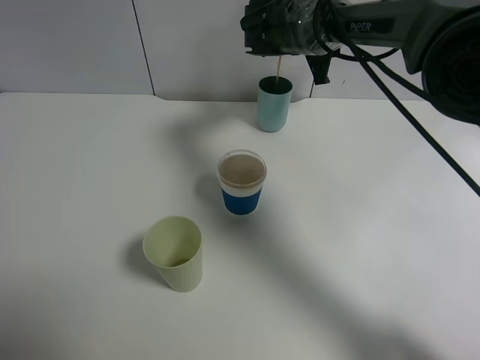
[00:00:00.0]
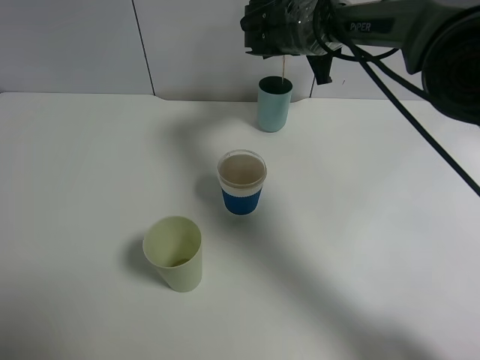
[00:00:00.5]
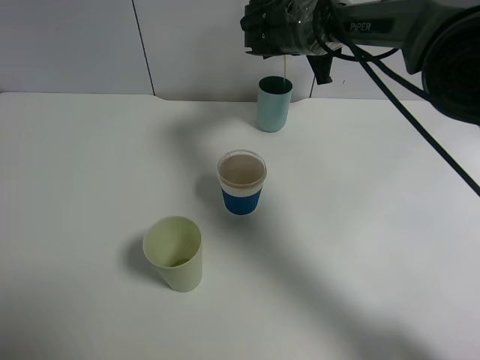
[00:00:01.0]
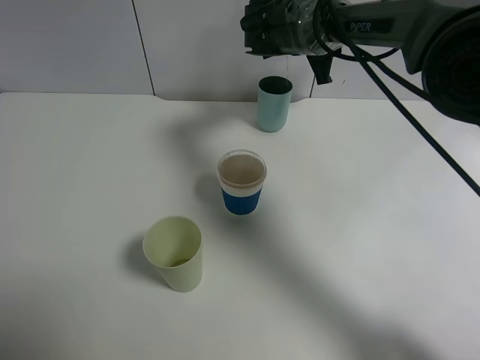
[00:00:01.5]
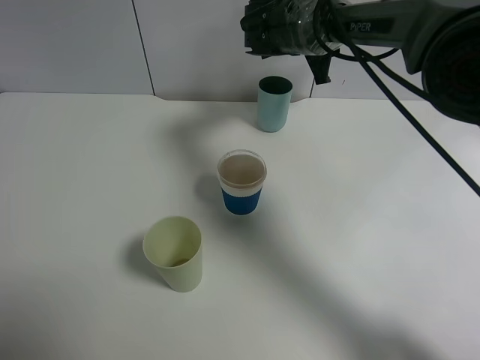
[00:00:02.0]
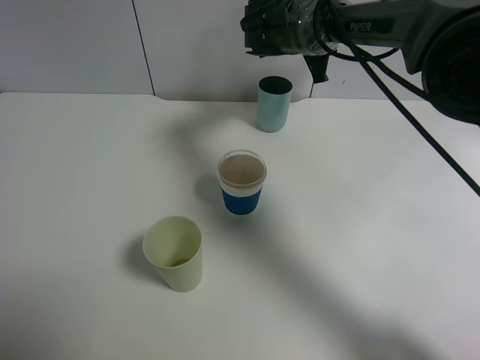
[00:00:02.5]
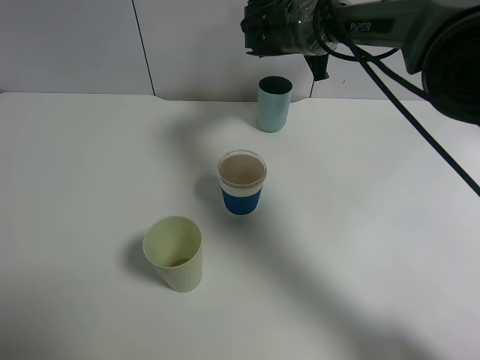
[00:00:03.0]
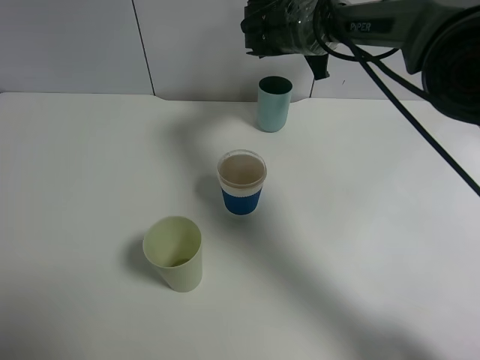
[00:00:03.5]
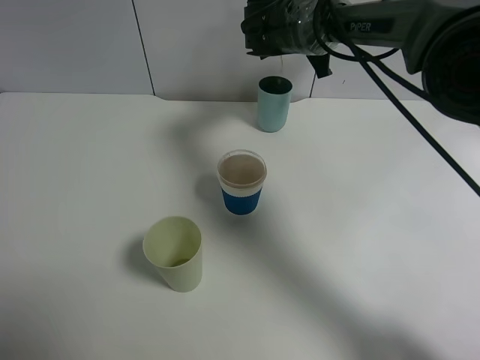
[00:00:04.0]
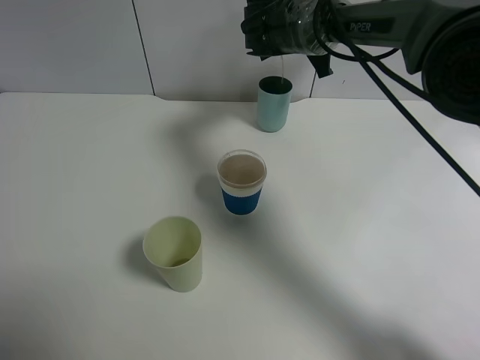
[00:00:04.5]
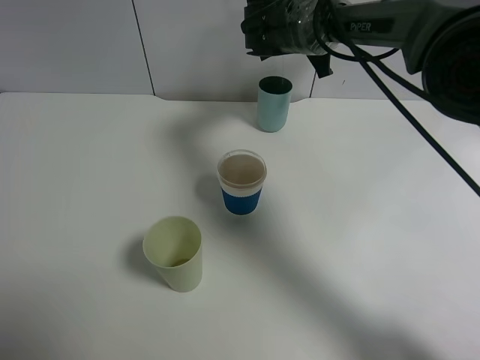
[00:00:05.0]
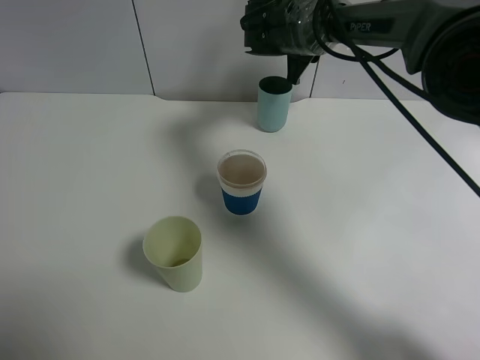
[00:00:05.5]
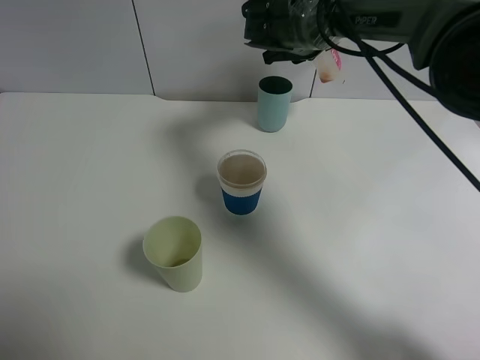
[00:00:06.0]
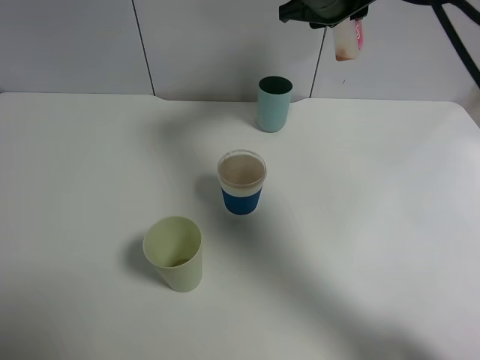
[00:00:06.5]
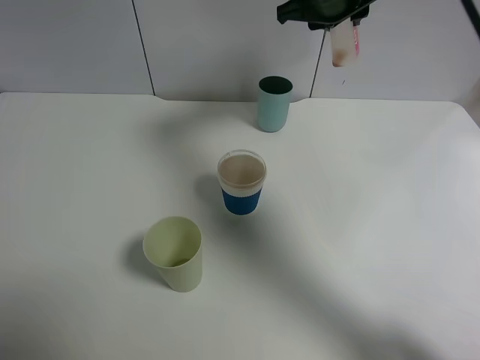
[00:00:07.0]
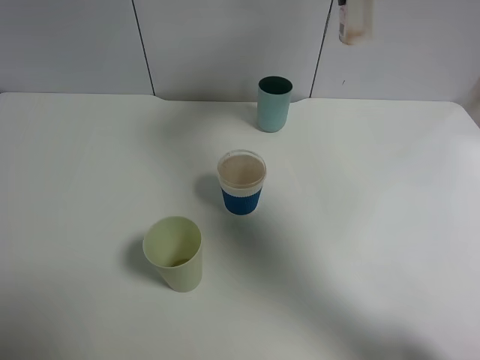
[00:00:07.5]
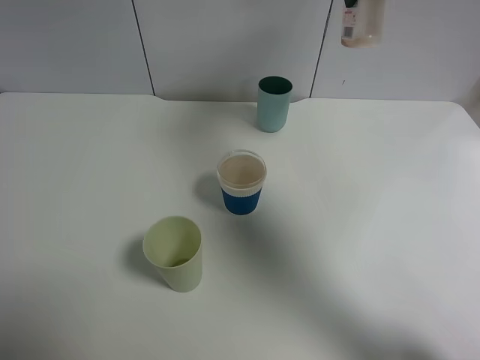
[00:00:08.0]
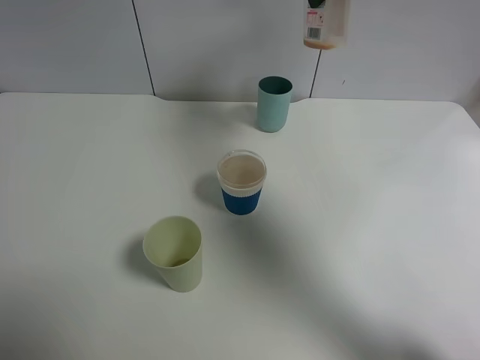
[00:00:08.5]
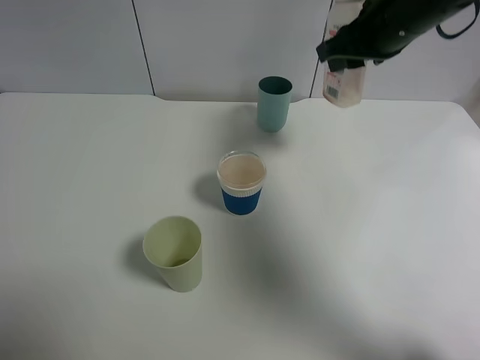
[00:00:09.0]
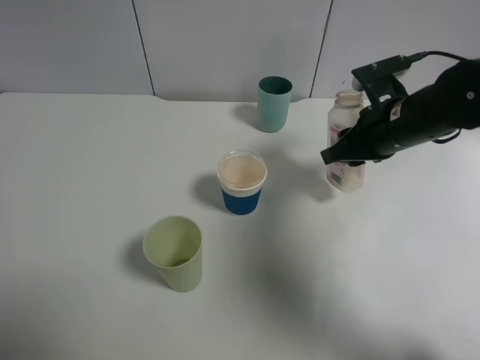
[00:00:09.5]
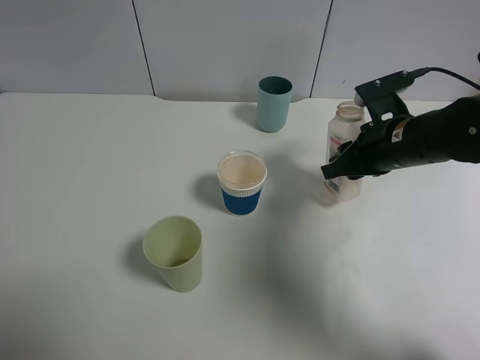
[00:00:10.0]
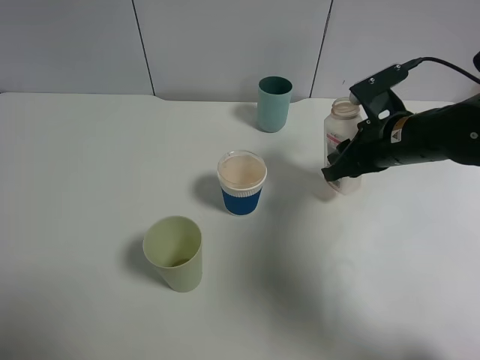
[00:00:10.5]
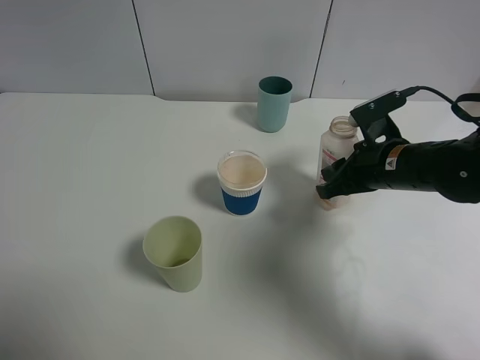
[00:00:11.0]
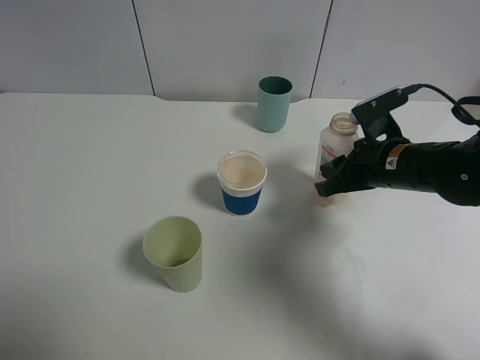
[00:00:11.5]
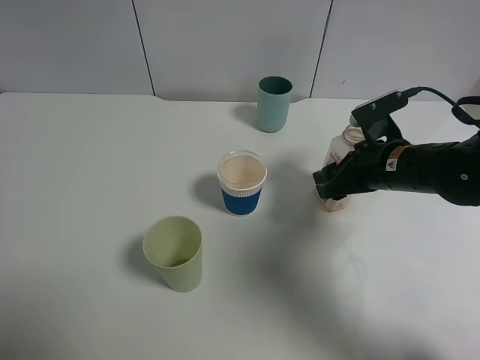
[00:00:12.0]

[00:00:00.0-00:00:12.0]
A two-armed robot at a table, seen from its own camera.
Task of the whole recording: use a gripper to hold the bottle of the drink and pour it into a random cup.
00:00:00.0 to 00:00:02.0: The two grippers keep their place.
00:00:06.0 to 00:00:08.0: The right gripper moves upward, to the right and backward, approximately 20 cm.
00:00:08.0 to 00:00:10.0: The right gripper moves downward and backward, about 25 cm.
00:00:10.0 to 00:00:12.0: The right gripper opens its fingers.

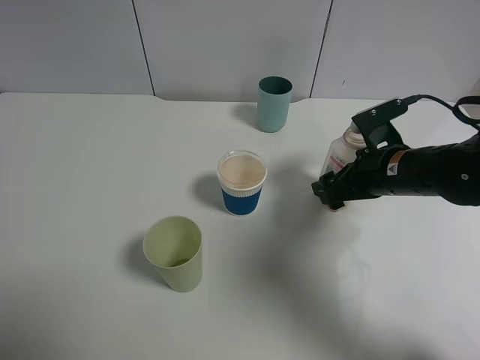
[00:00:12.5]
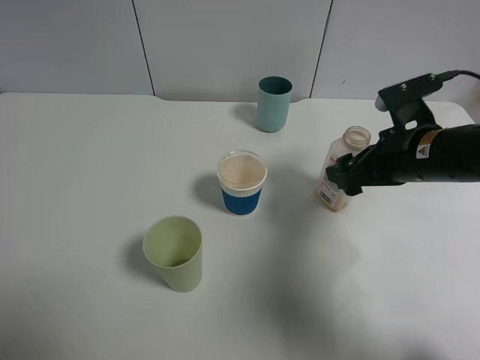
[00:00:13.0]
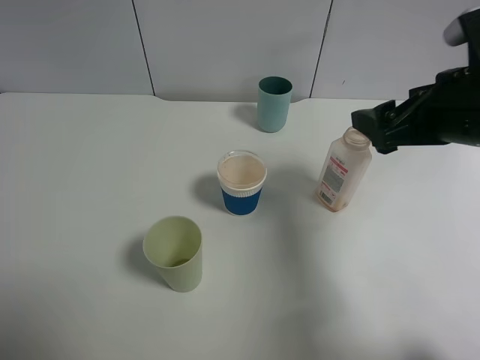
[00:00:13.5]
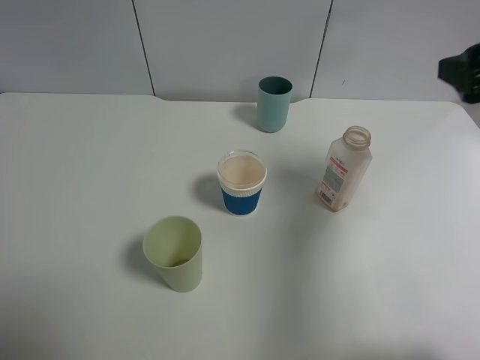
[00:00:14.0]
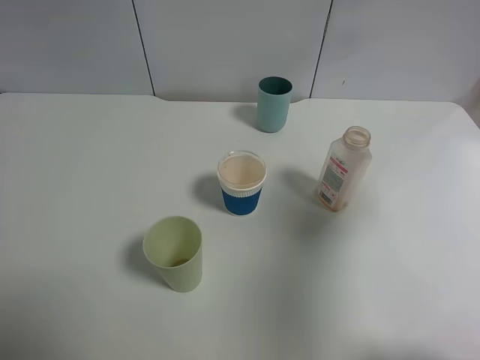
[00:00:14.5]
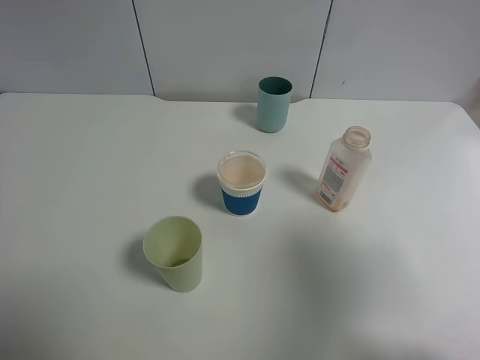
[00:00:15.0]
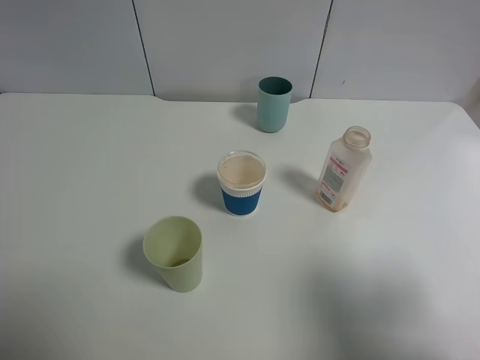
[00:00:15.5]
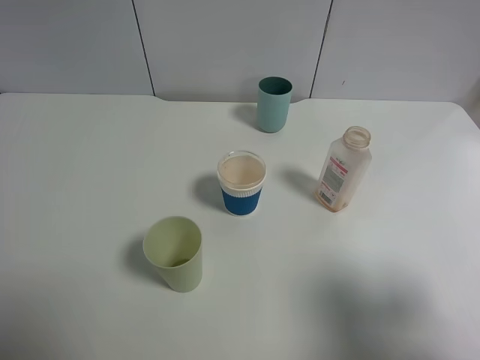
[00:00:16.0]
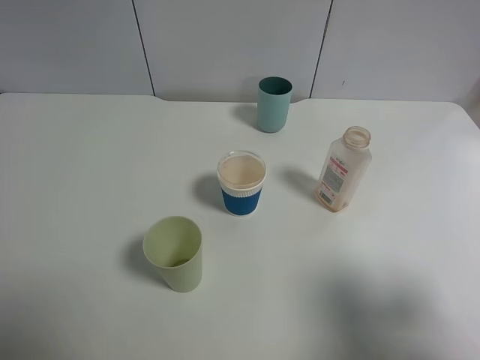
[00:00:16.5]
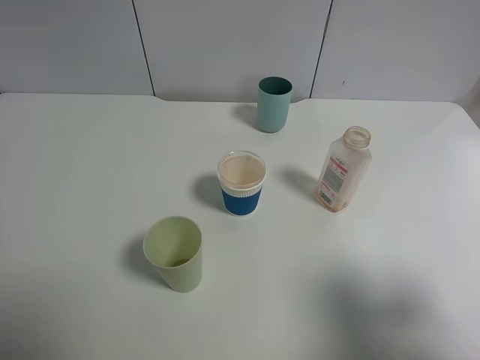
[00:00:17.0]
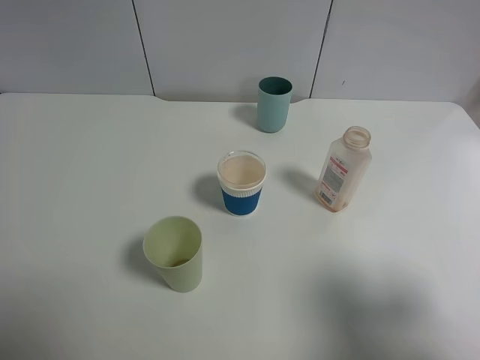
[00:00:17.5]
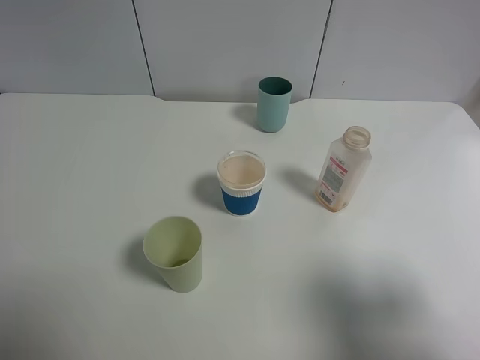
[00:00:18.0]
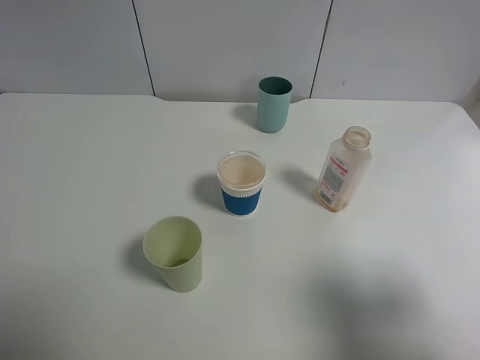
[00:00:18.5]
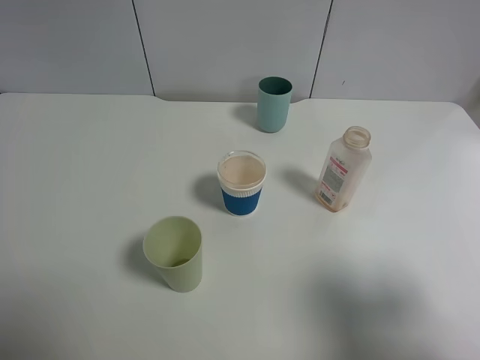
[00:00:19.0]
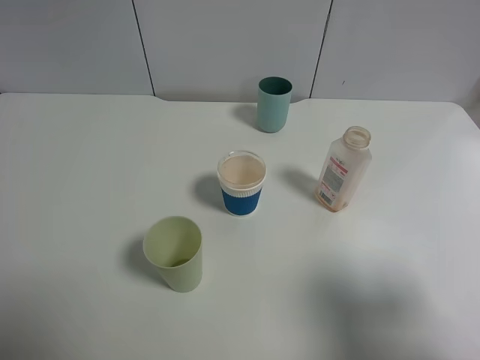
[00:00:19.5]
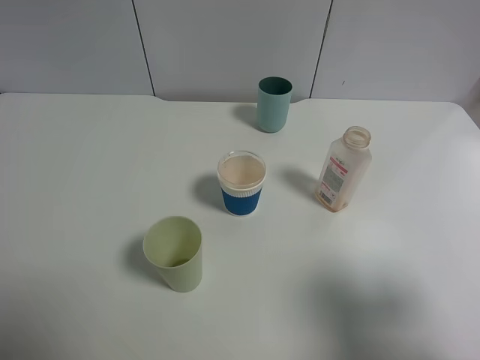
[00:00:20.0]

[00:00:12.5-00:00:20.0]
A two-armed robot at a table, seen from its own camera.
Task of the whole recording: use a gripper to hold the bottle of the drink and pour it into a random cup.
00:00:12.5 to 00:00:14.5: The right gripper goes some 30 cm upward, backward and to the right.
00:00:14.5 to 00:00:16.5: The right gripper moves backward and downward, approximately 15 cm.
00:00:18.0 to 00:00:20.0: Both grippers stay about where they are.
